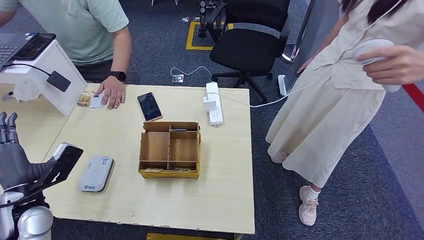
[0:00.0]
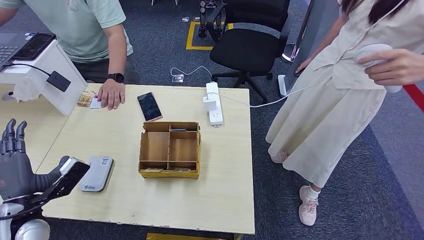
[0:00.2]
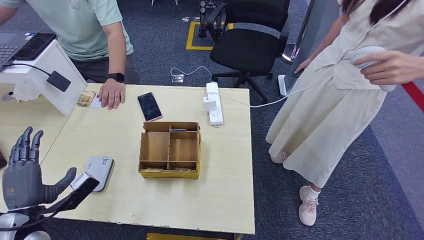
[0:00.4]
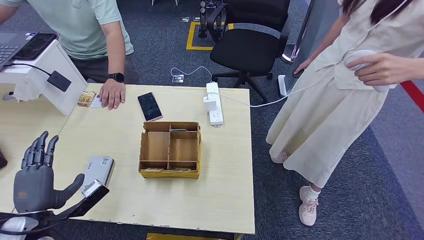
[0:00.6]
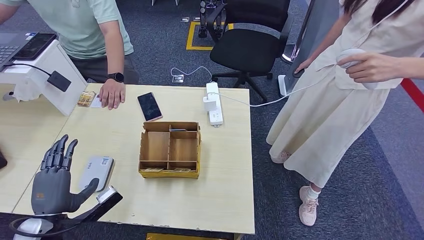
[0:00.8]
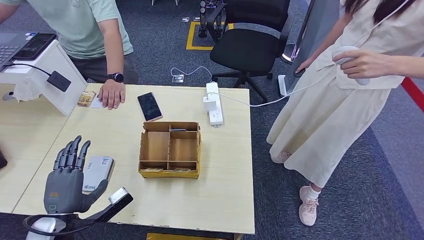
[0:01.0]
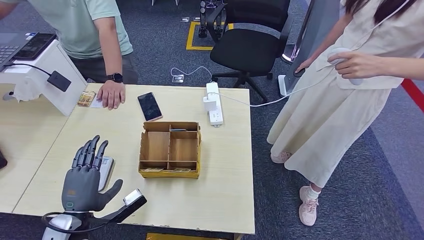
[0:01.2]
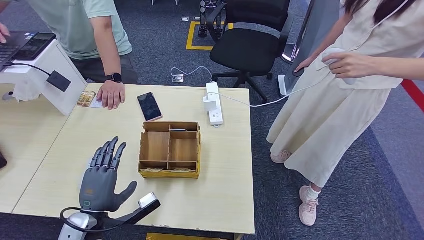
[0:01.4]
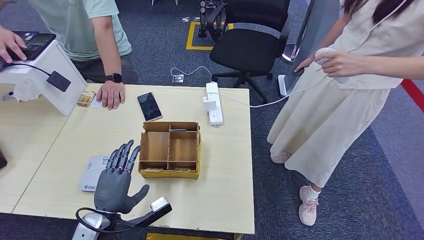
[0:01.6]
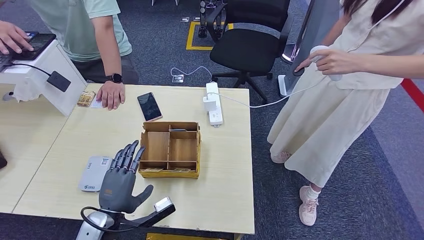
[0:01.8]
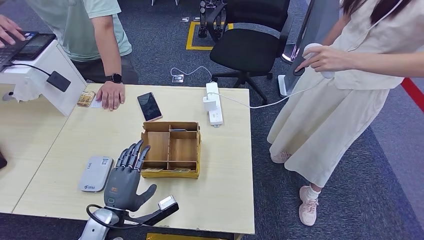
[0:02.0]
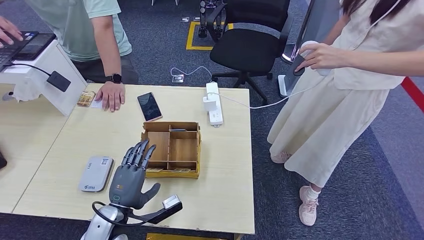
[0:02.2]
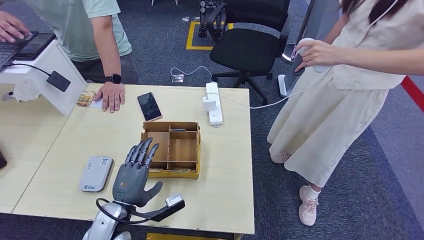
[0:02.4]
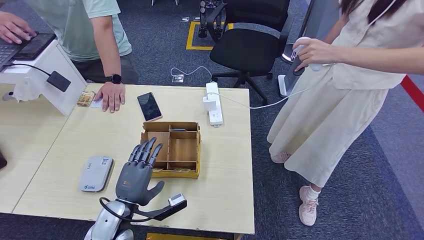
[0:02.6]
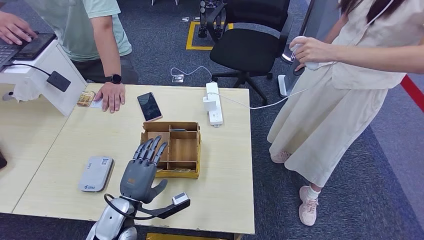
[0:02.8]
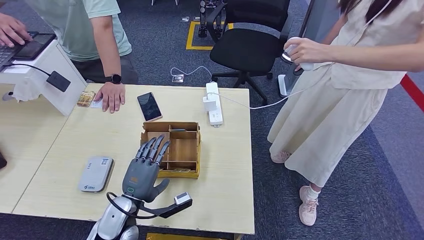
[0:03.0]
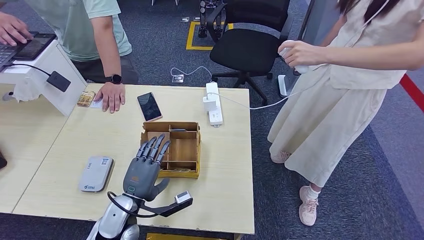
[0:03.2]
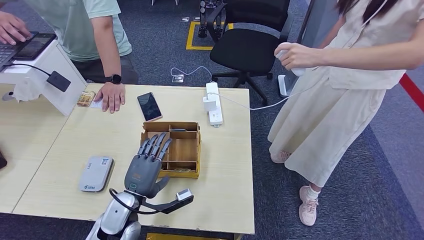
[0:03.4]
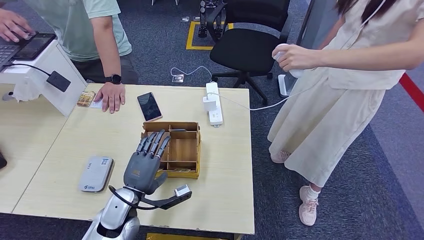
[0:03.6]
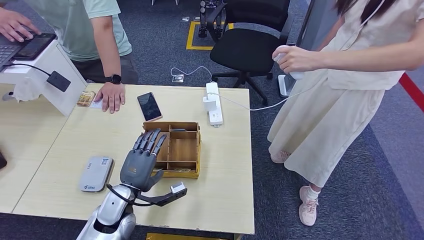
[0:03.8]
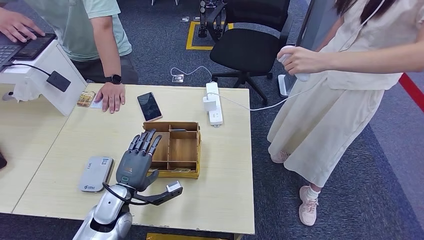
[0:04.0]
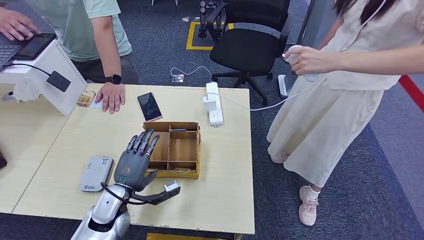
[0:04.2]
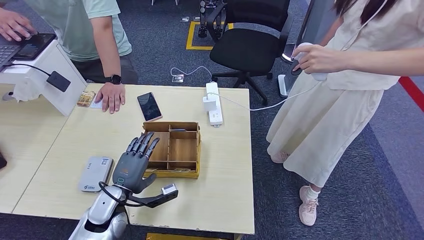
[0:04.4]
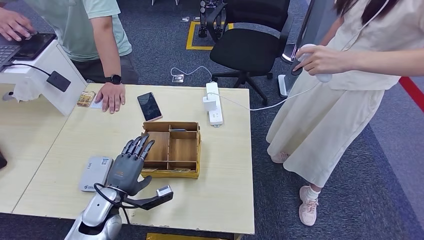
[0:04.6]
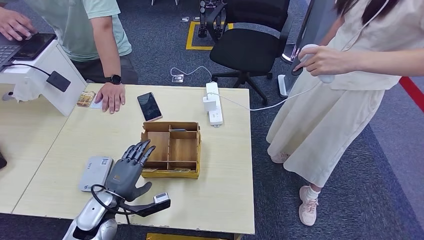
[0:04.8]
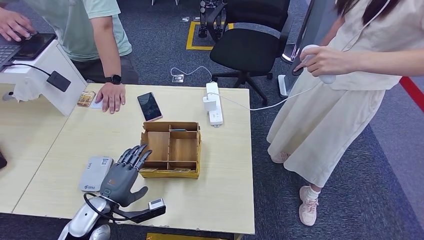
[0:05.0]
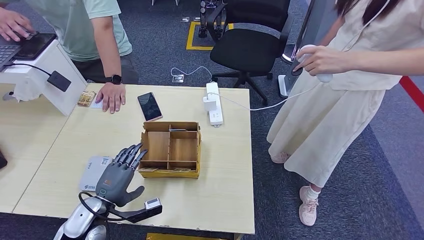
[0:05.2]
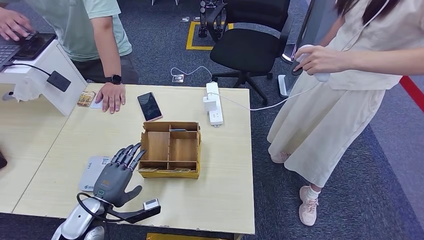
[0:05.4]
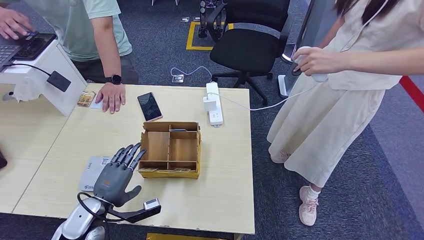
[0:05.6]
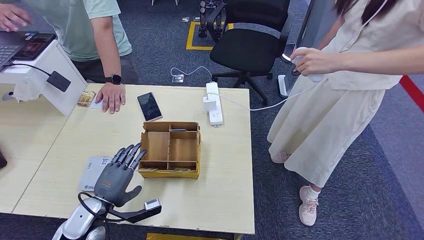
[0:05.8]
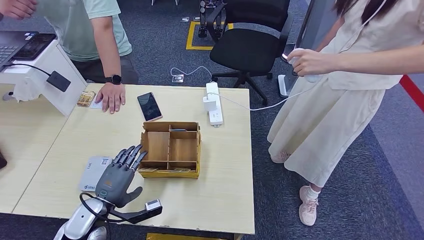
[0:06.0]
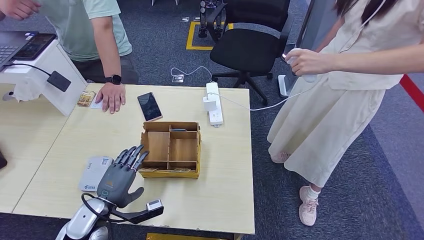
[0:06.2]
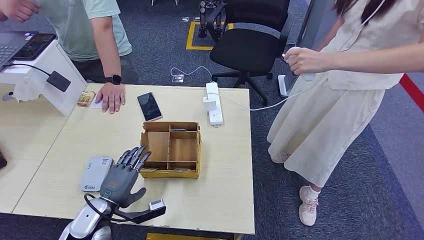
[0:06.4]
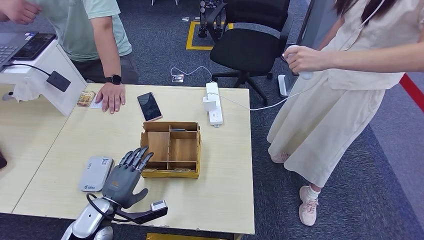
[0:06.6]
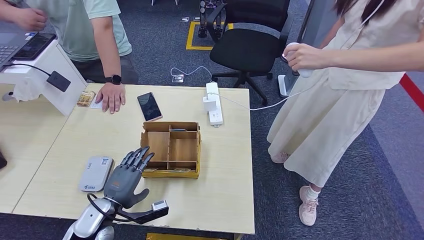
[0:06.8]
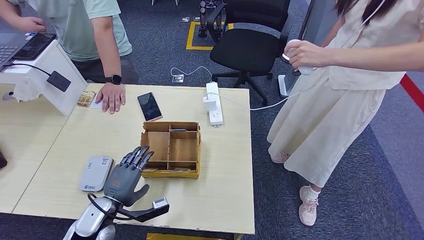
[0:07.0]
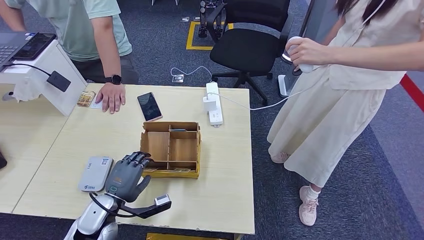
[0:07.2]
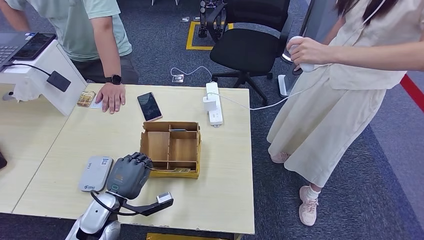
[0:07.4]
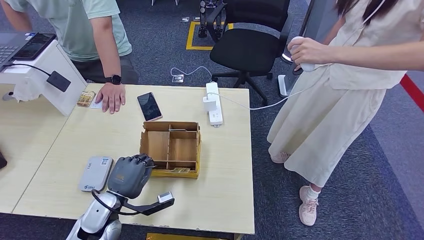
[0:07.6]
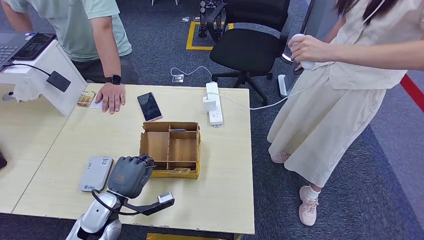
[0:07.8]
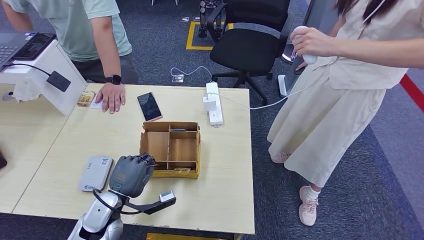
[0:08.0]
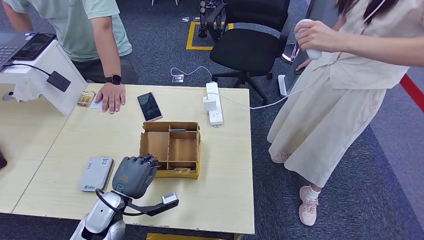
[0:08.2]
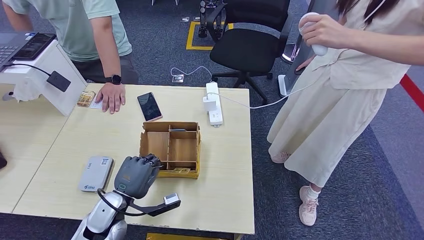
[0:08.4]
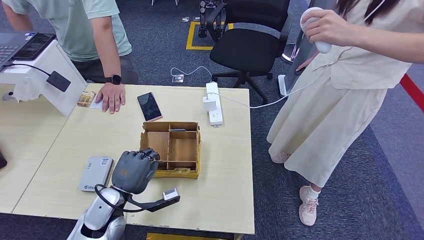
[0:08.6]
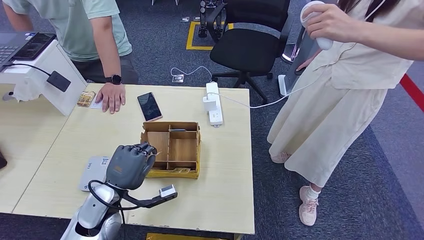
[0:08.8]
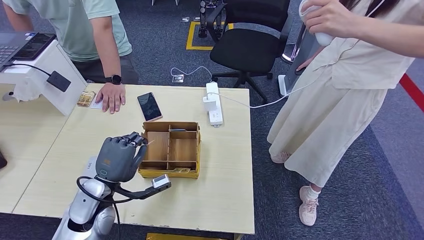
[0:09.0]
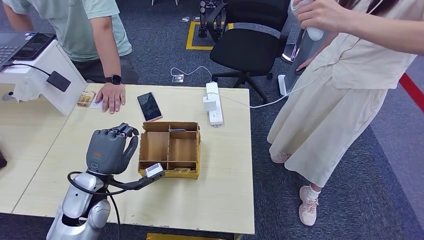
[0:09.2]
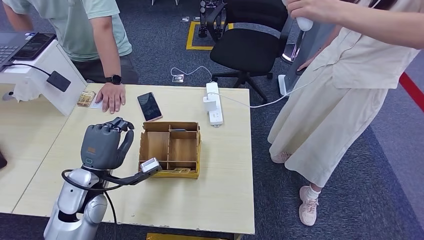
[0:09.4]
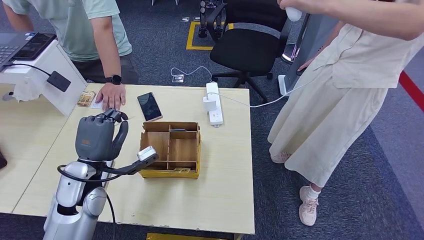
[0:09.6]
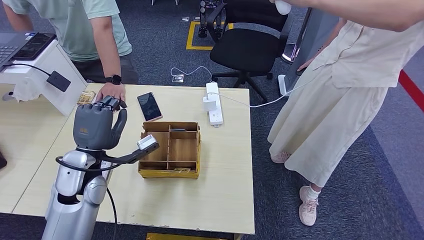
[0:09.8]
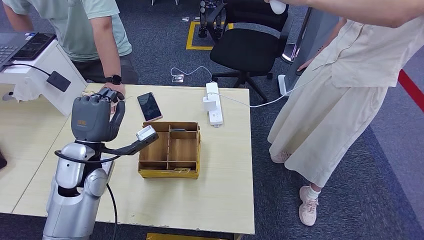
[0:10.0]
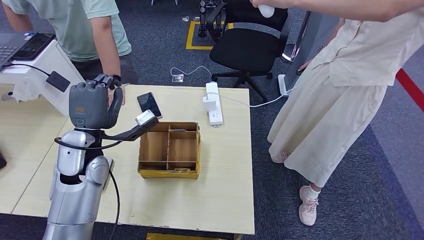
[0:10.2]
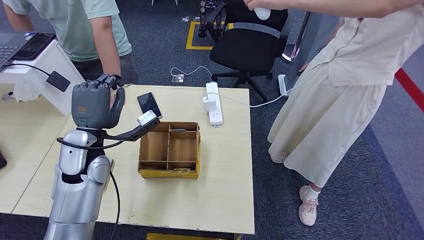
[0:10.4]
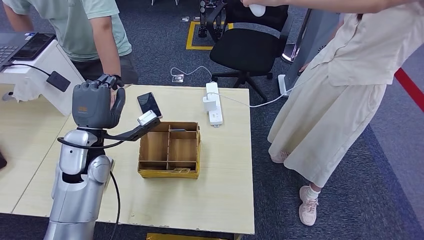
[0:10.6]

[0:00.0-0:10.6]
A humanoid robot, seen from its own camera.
Step, 0:00.0 to 0:08.2: Pick up the room key from the key card box.
Step, 0:08.6 to 0:10.6: Hand the room key to the person.
0:00.0 to 0:01.6: The left hand travels to the right by roughly 15 cm.
0:01.6 to 0:03.0: The left hand shifts by roughly 5 cm.
0:03.0 to 0:04.6: The left hand travels to the left by about 5 cm.
0:04.6 to 0:07.6: The hands make only small movements.
0:07.6 to 0:09.0: The left hand heads upward, covering some 5 cm.
0:09.0 to 0:10.6: The left hand is displaced upward and forward by roughly 10 cm.
